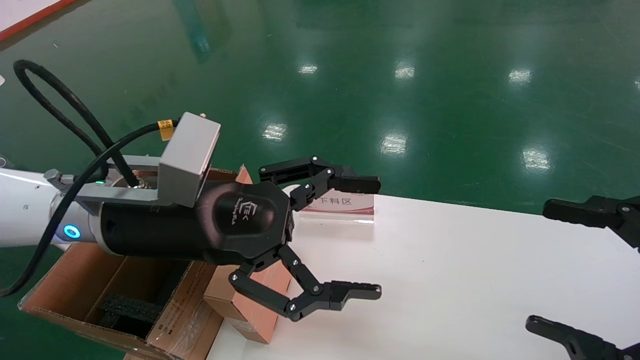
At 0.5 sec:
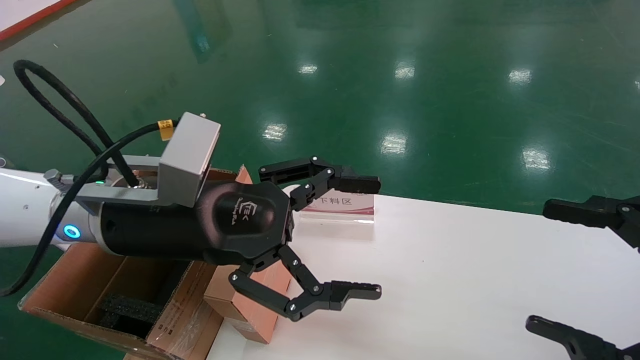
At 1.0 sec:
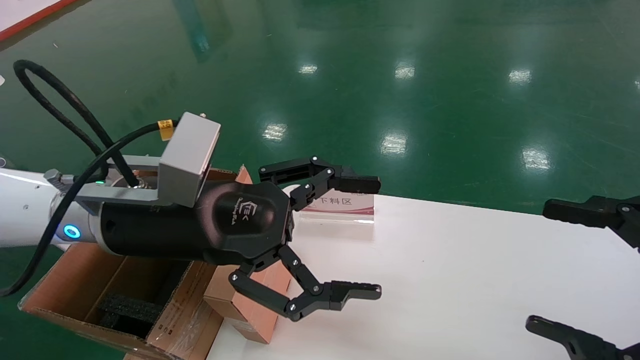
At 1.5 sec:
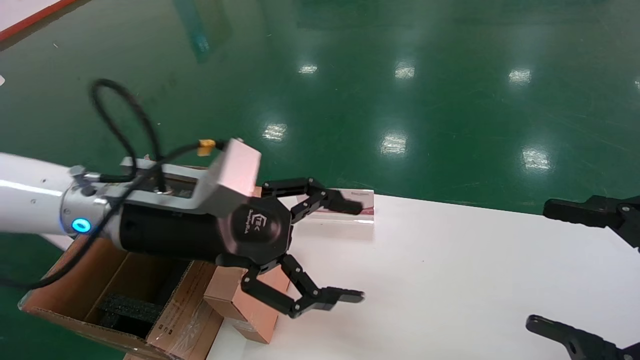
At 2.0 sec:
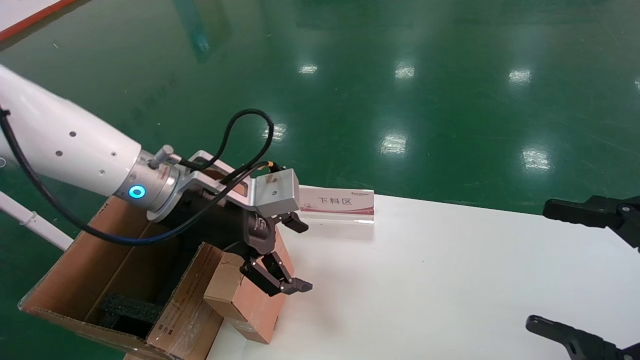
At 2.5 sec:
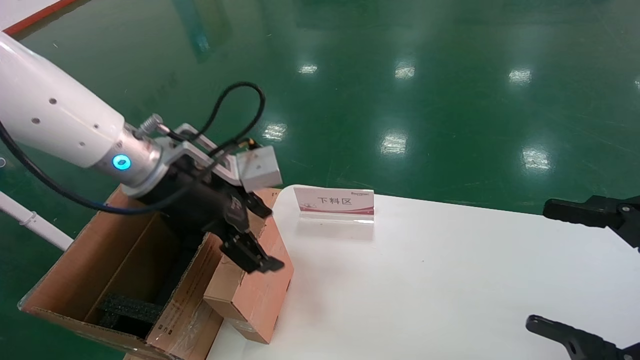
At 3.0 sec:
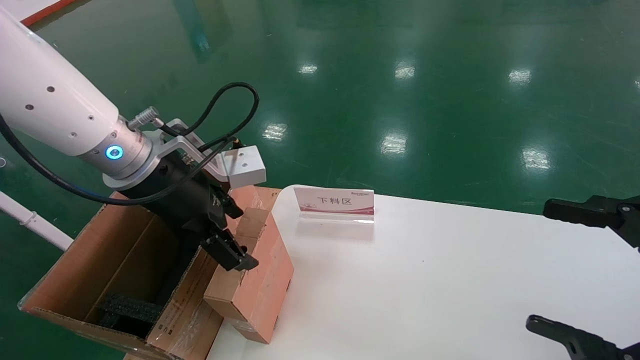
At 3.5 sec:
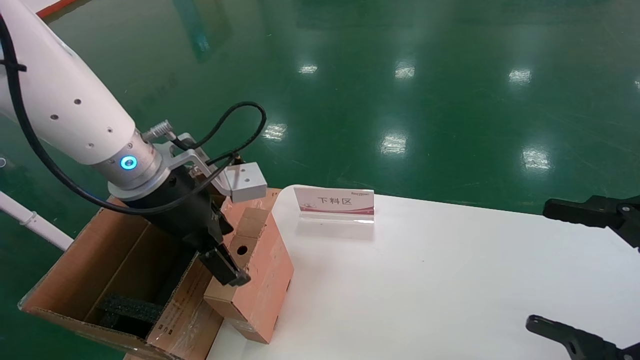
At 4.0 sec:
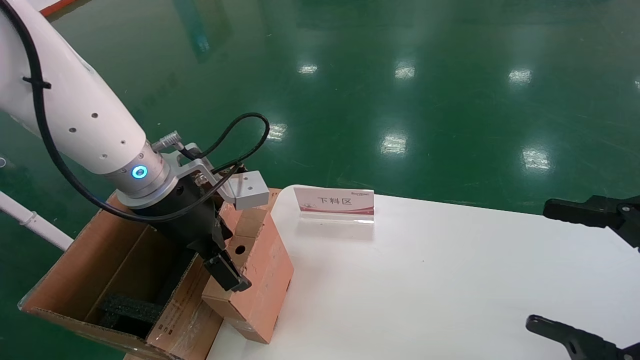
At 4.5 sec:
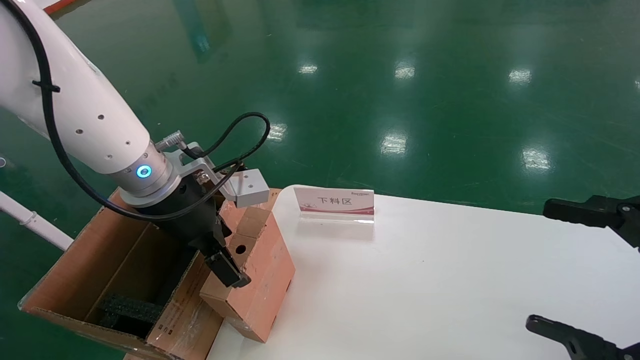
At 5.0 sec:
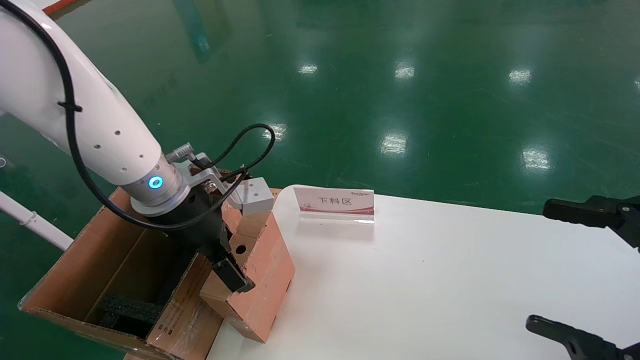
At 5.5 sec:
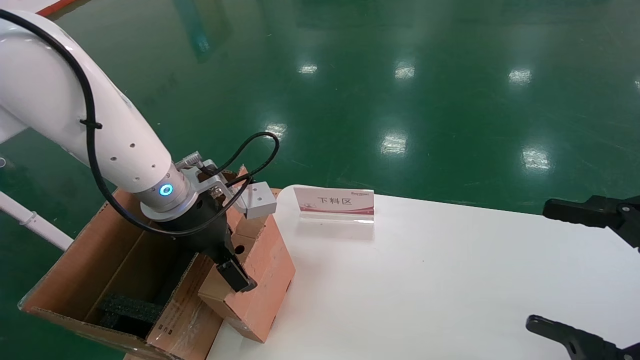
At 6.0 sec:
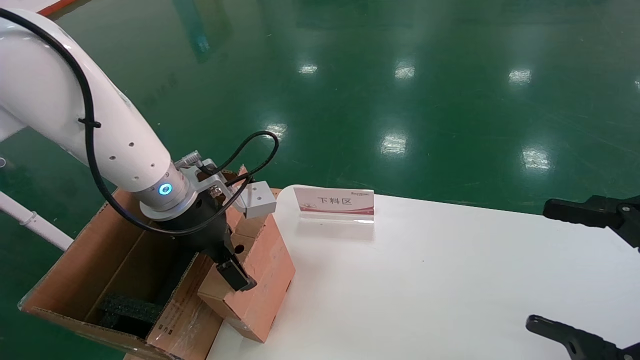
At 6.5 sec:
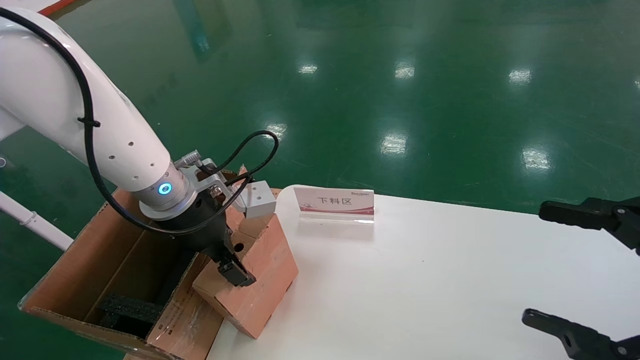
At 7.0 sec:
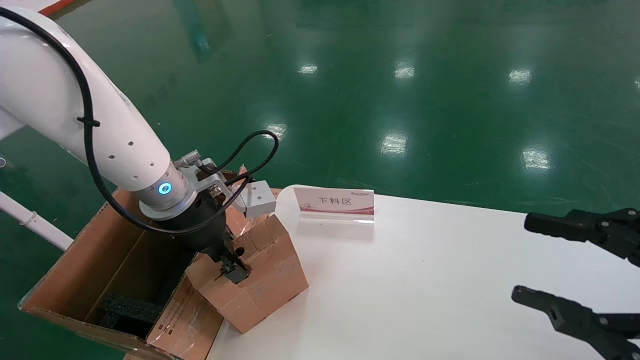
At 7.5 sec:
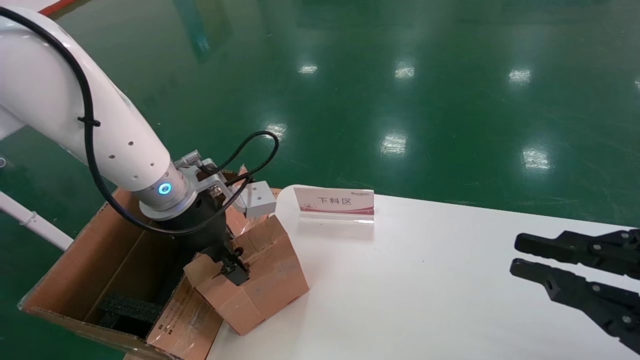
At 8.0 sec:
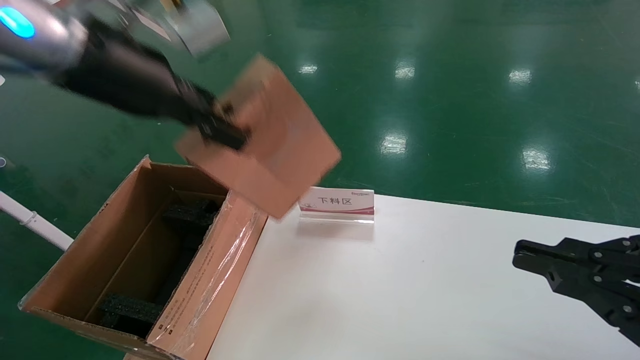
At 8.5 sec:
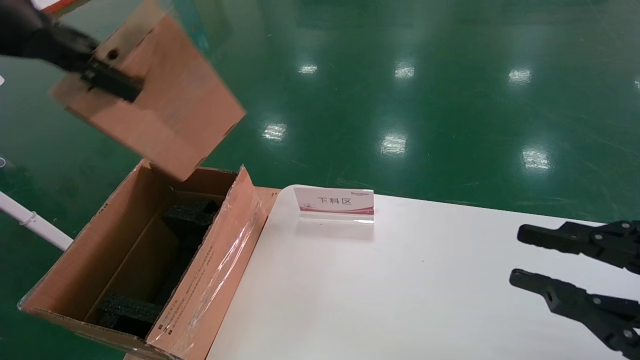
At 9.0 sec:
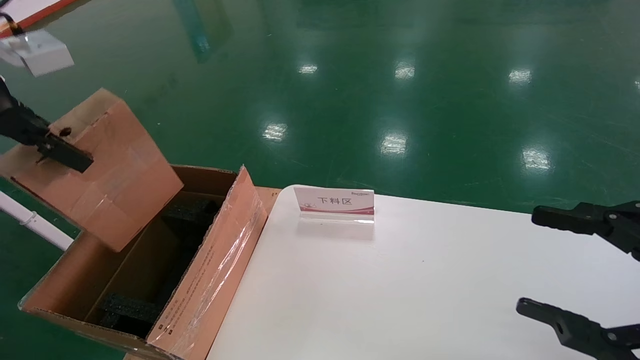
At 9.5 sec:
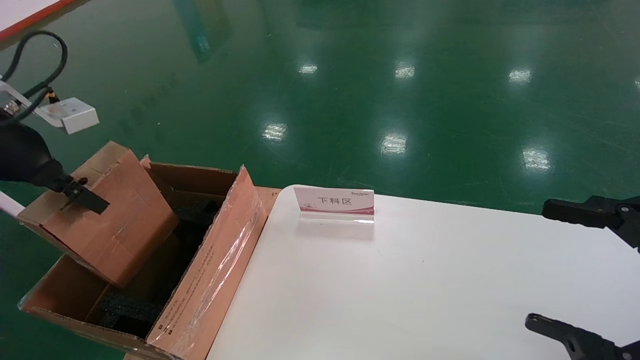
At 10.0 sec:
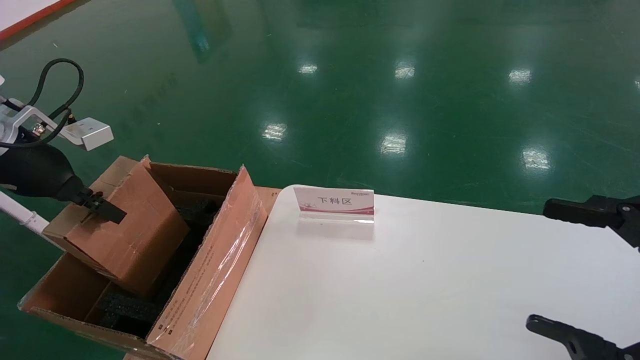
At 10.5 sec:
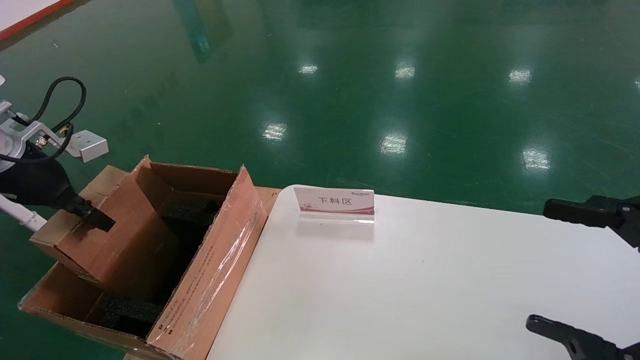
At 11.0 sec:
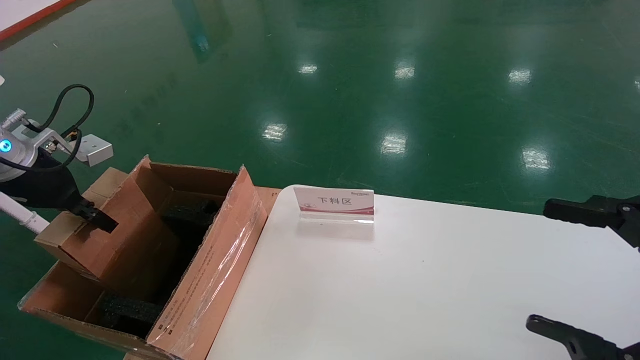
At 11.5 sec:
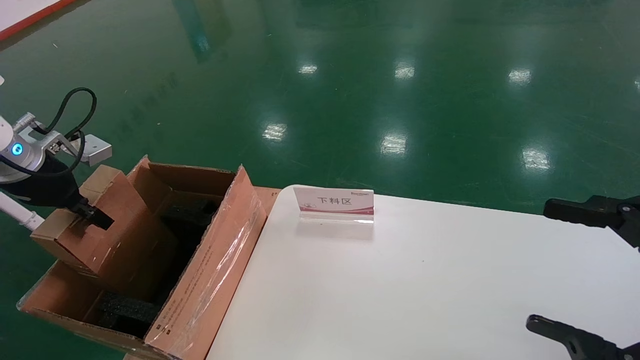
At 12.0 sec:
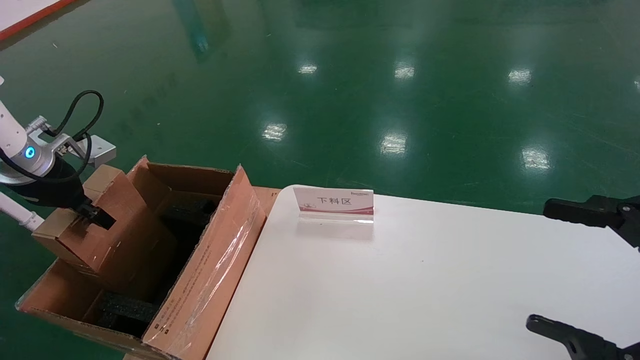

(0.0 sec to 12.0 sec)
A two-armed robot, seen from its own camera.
Task of the whole recording: pick up the small cardboard box and load it into the large cardboard box.
Step, 1.5 sec - 7.0 sec: Pick up the mouse and power cord box.
0.0 sec - 2.0 sec: The left gripper goes about 5 cm forward.
4.0 sec - 6.0 sec: The grippers make only small movements.
6.0 sec - 8.0 sec: The right gripper closes its fingers; the left gripper moves upward, about 15 cm, and closes its fingers.
8.0 sec - 10.0 sec: The right gripper opens up. The left gripper shifts approximately 20 cm to the left and downward.
10.0 sec - 12.0 sec: The left gripper ends up approximately 5 cm from where it was.

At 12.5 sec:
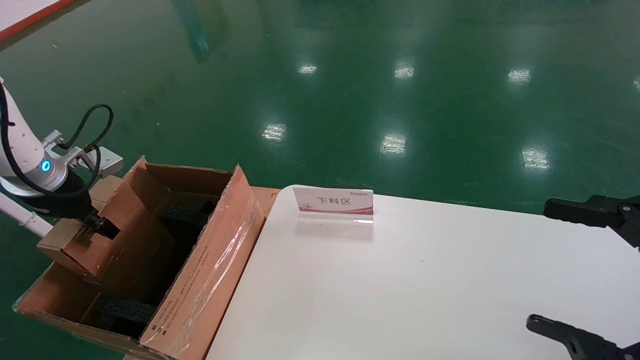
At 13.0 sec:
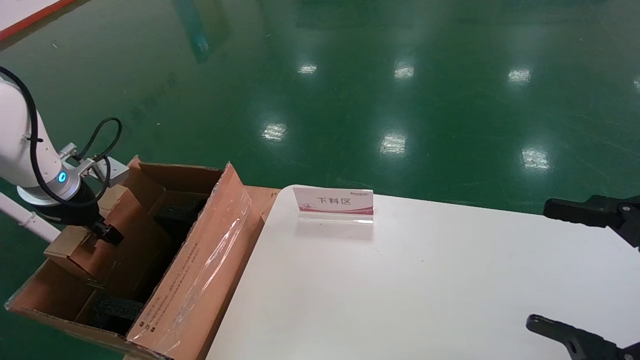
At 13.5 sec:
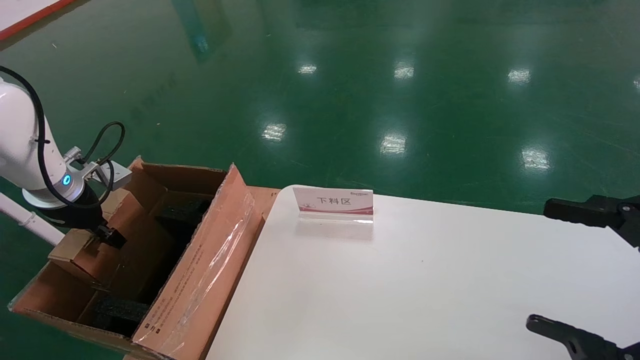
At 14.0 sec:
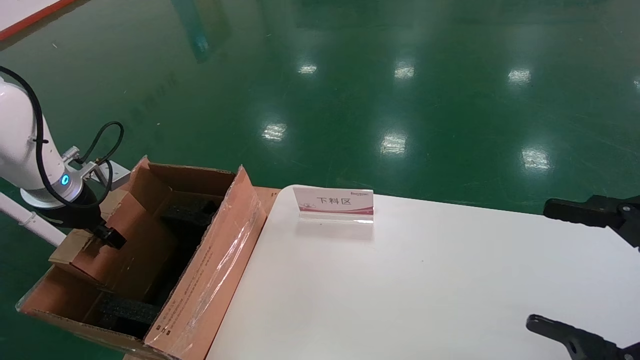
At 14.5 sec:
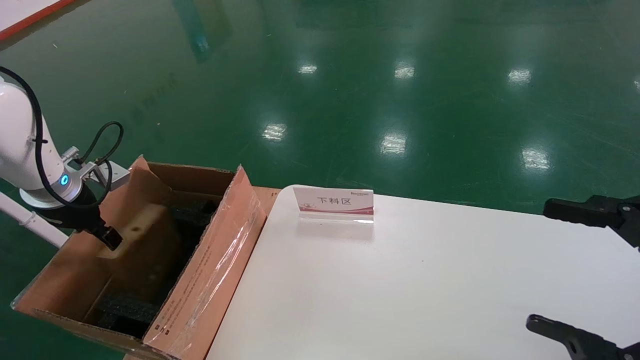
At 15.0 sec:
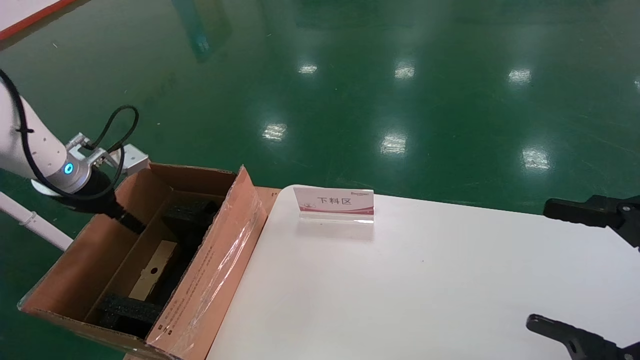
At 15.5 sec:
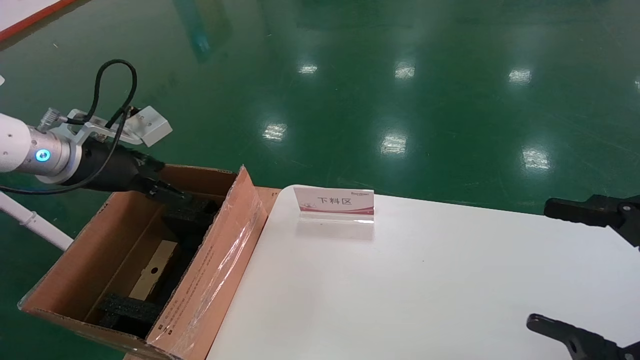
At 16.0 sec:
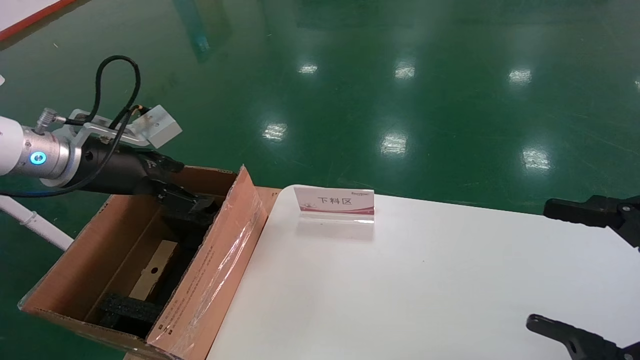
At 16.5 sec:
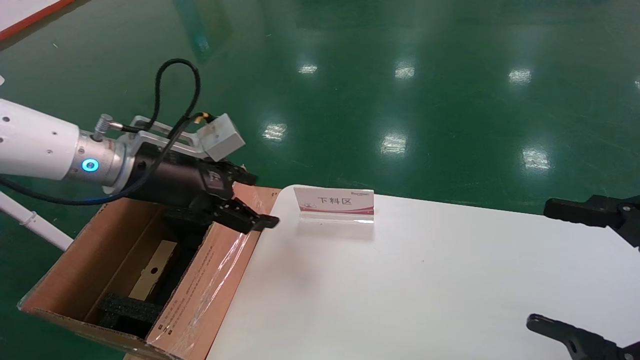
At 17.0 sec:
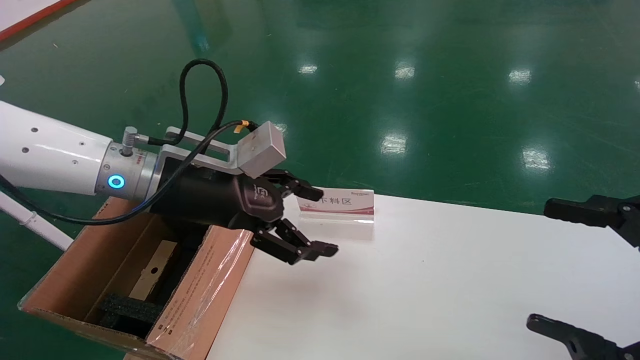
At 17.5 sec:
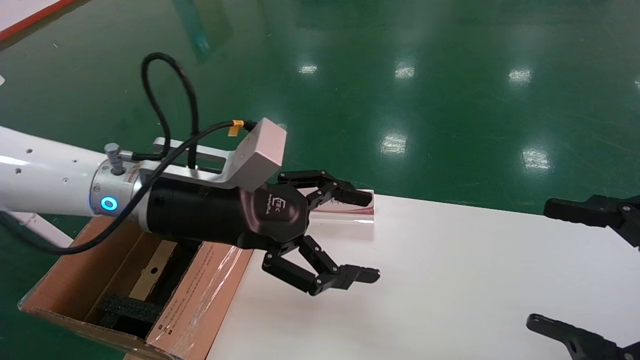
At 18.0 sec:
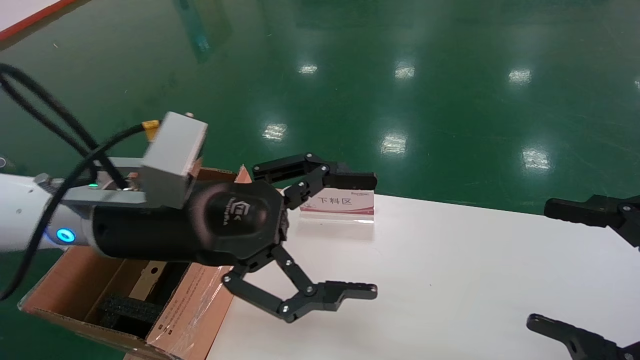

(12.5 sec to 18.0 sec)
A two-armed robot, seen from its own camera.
Task of the whole recording: pick up the small cardboard box and load it into the large cardboard box.
Step, 12.5 sec - 14.5 sec: Place the mouse and power cord box into the case.
12.5 sec - 14.5 sec: The left gripper opens.
14.5 sec - 16.0 sec: The left gripper shifts about 15 cm to the right and upward, and opens.
16.0 sec - 18.0 sec: The left gripper moves to the right and backward, some 15 cm.

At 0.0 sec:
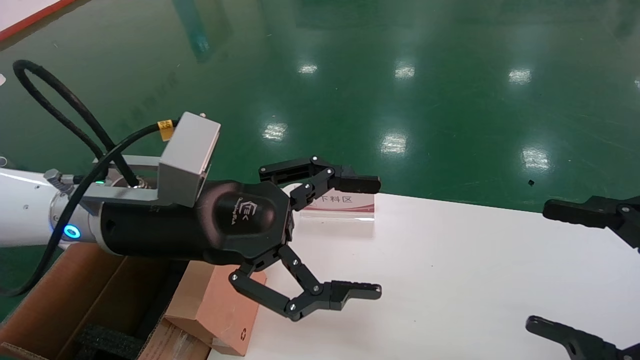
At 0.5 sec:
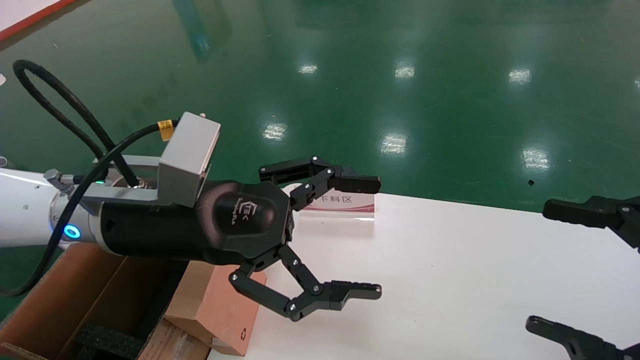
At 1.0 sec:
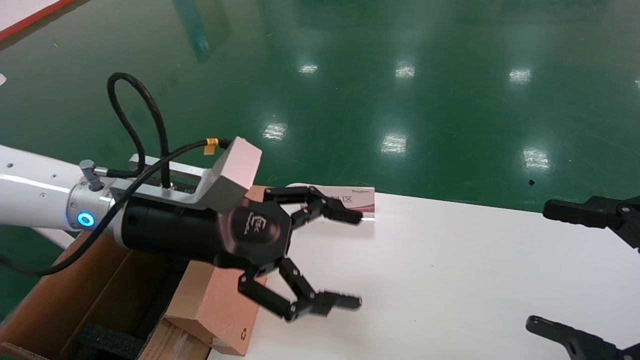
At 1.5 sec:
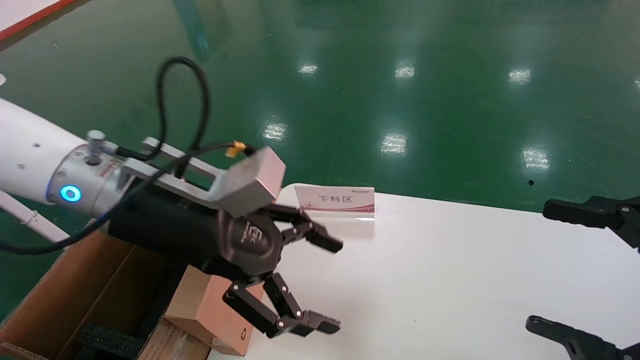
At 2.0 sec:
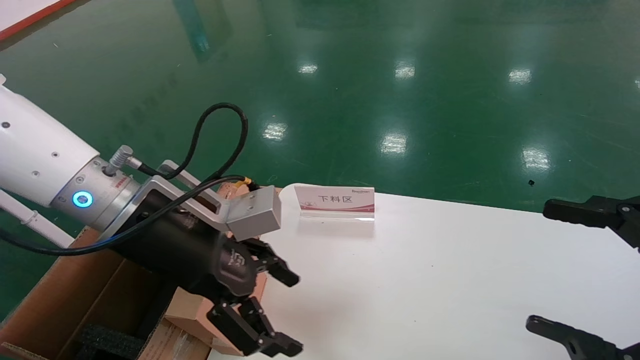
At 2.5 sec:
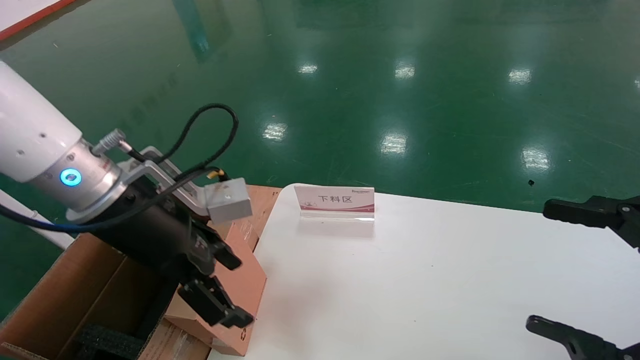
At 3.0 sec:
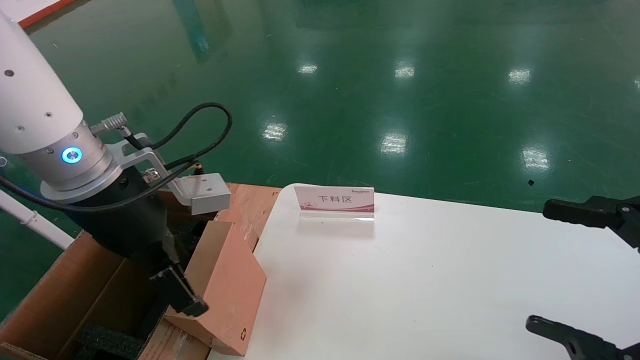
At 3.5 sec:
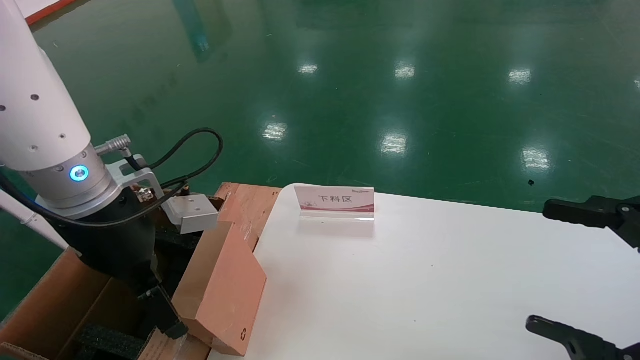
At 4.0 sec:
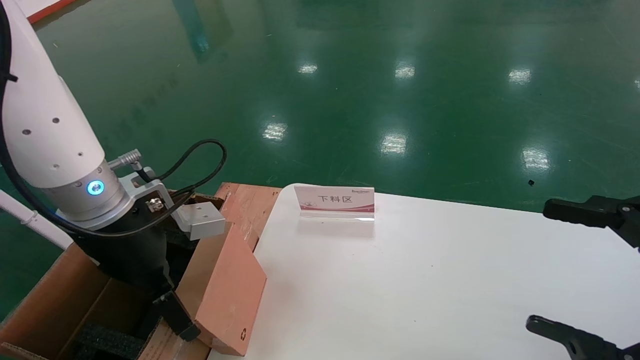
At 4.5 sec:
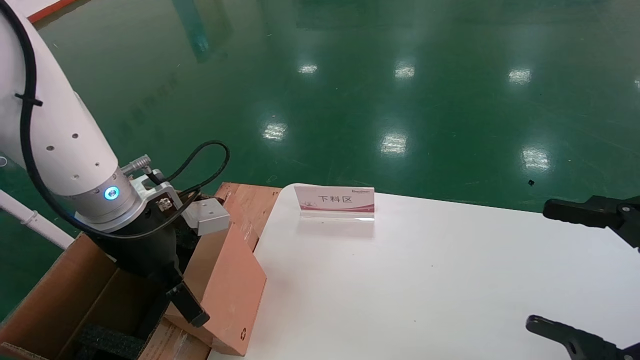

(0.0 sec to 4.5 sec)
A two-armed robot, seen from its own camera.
Task of the whole recording: pick up the small cardboard box and load it into the large cardboard box.
2.0 sec - 4.5 sec: The left gripper is displaced to the left by about 5 cm.
